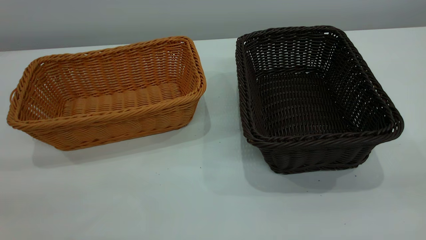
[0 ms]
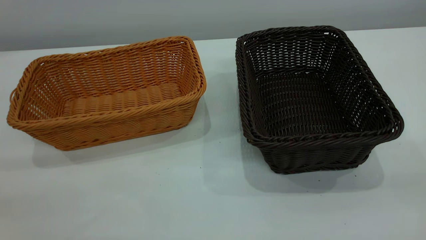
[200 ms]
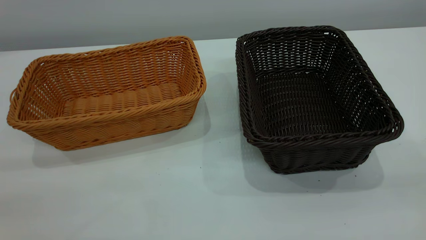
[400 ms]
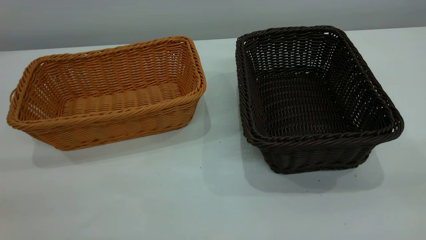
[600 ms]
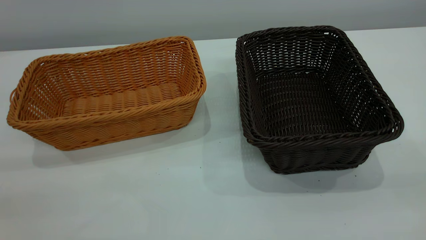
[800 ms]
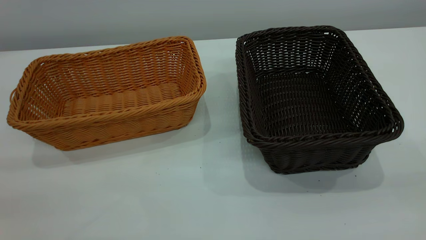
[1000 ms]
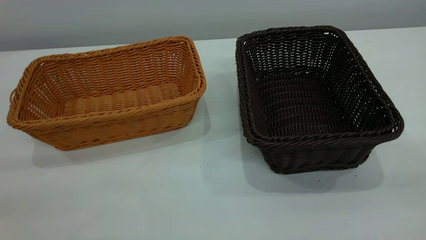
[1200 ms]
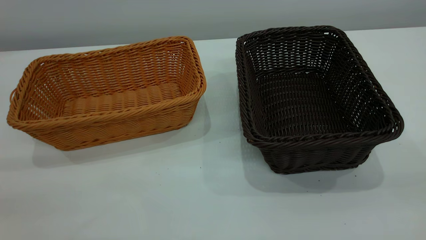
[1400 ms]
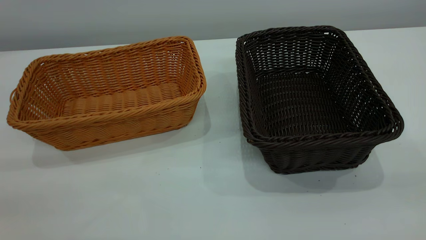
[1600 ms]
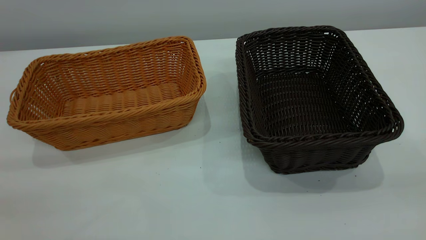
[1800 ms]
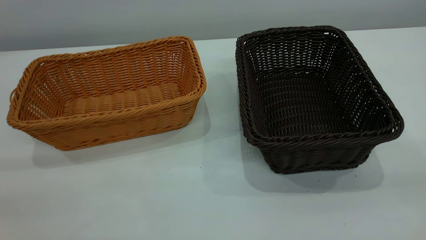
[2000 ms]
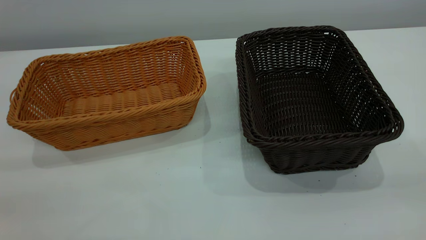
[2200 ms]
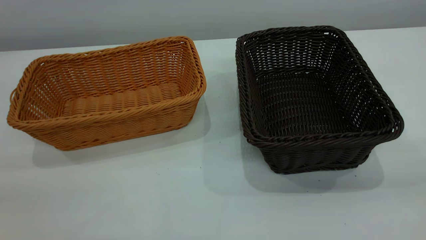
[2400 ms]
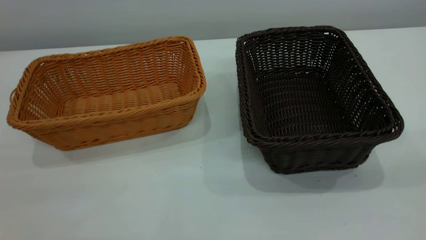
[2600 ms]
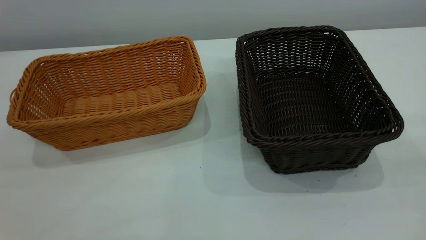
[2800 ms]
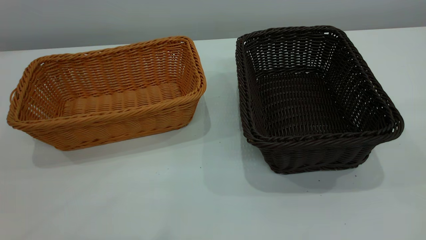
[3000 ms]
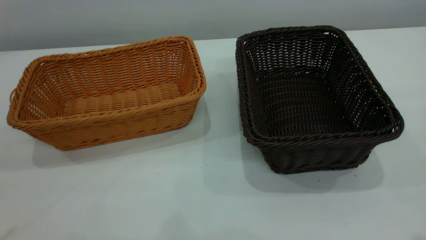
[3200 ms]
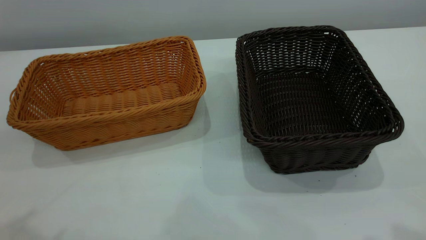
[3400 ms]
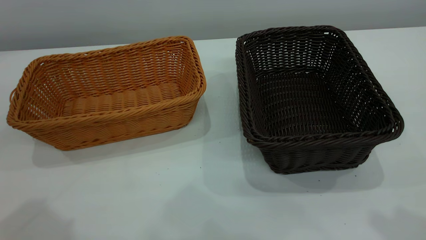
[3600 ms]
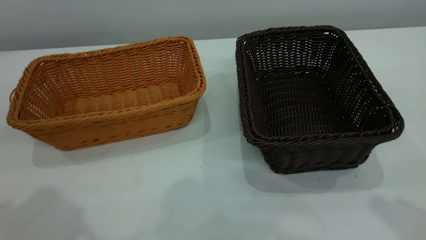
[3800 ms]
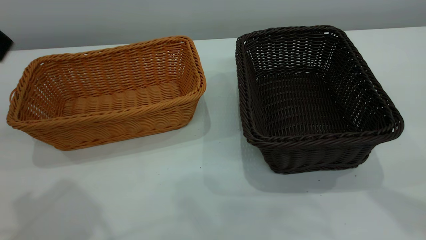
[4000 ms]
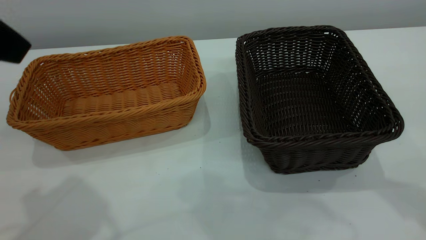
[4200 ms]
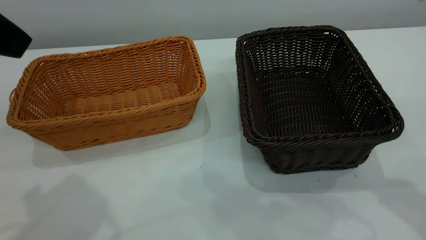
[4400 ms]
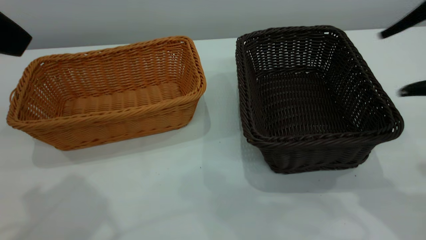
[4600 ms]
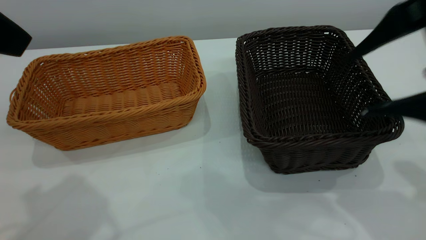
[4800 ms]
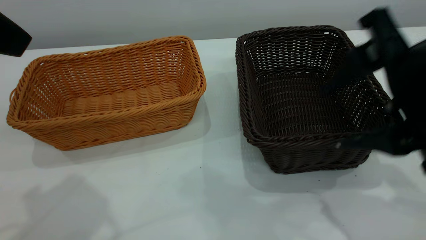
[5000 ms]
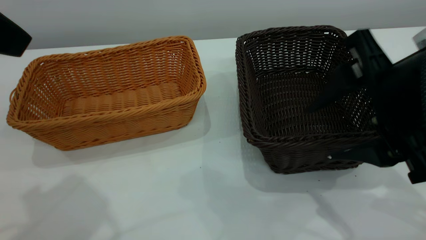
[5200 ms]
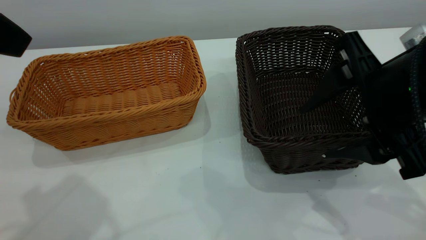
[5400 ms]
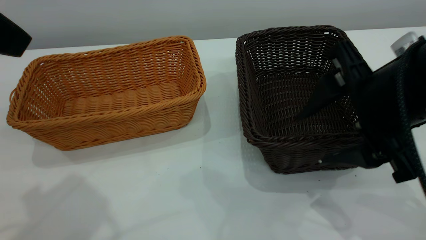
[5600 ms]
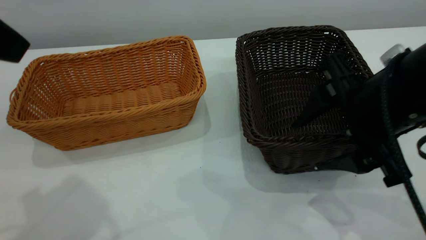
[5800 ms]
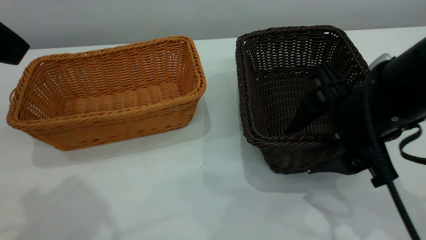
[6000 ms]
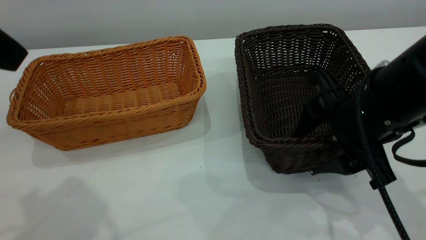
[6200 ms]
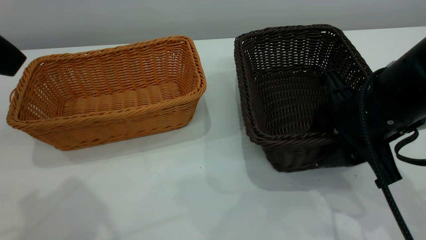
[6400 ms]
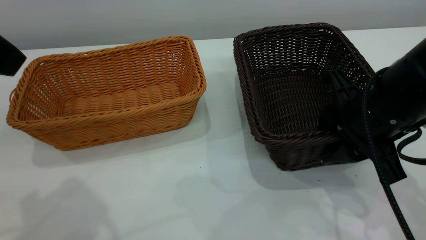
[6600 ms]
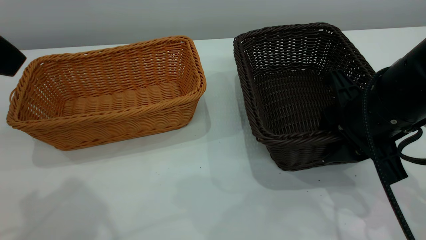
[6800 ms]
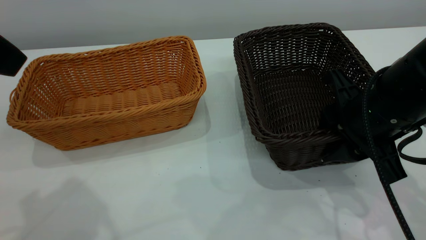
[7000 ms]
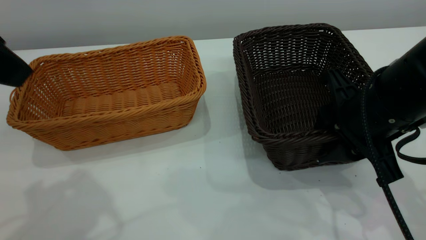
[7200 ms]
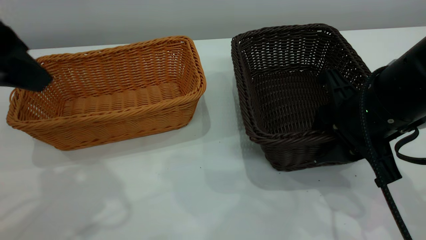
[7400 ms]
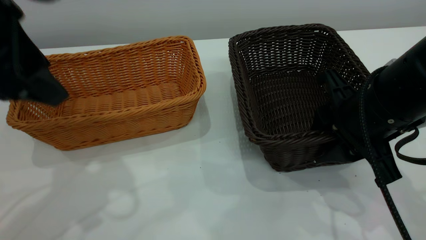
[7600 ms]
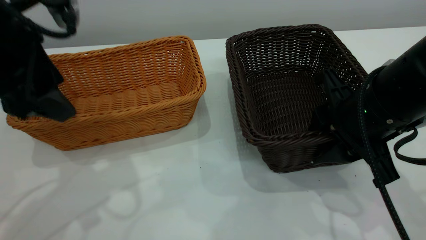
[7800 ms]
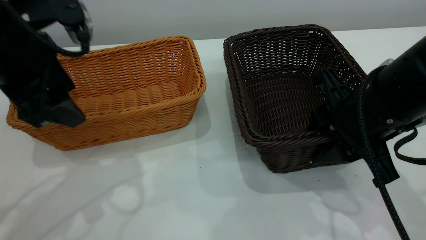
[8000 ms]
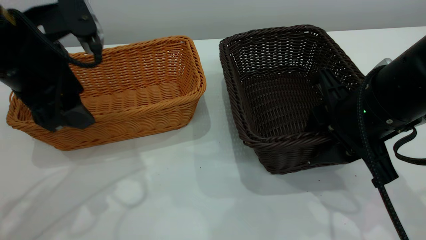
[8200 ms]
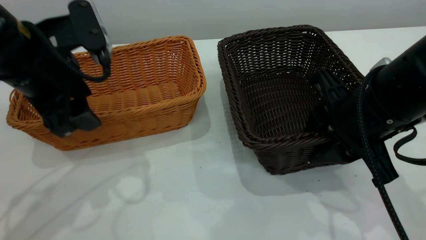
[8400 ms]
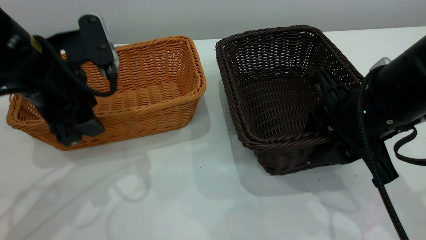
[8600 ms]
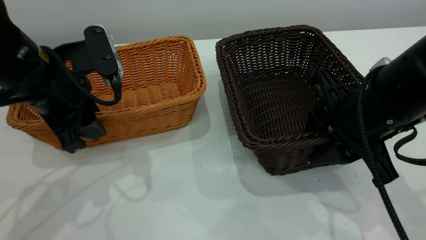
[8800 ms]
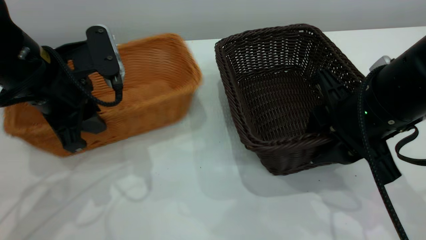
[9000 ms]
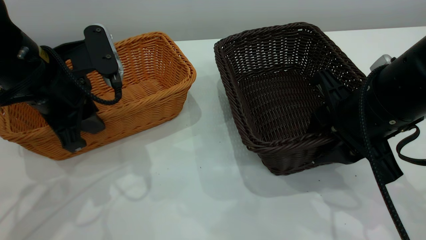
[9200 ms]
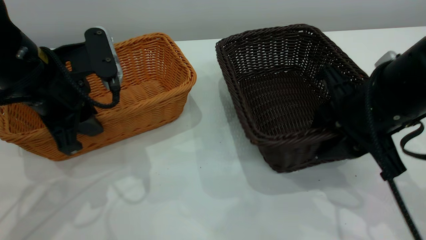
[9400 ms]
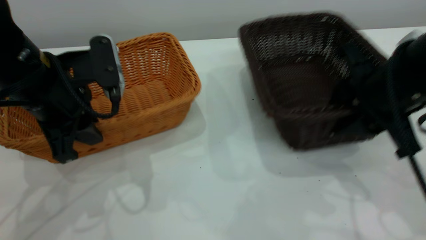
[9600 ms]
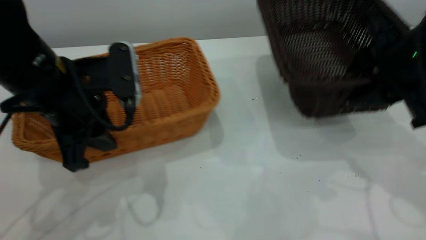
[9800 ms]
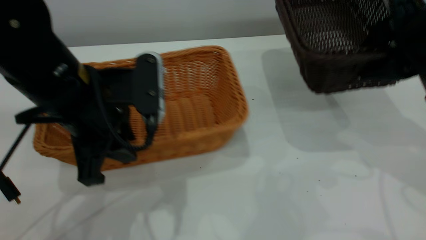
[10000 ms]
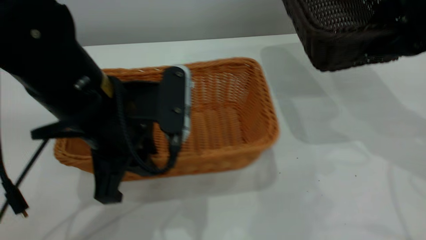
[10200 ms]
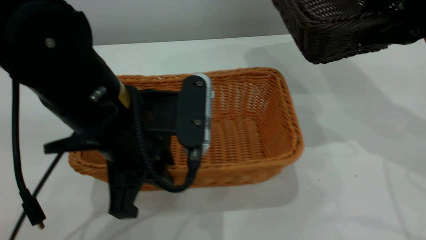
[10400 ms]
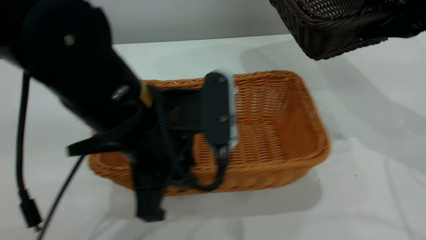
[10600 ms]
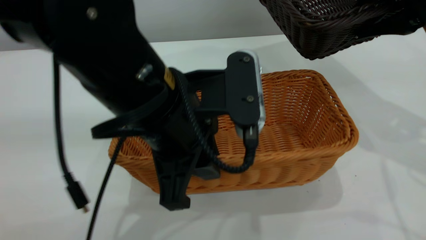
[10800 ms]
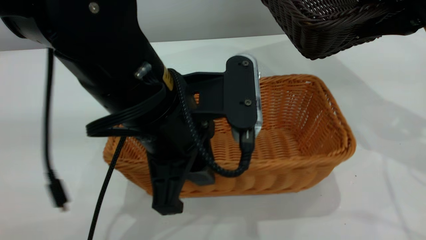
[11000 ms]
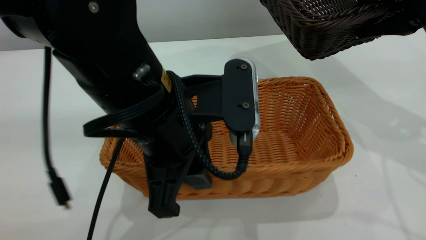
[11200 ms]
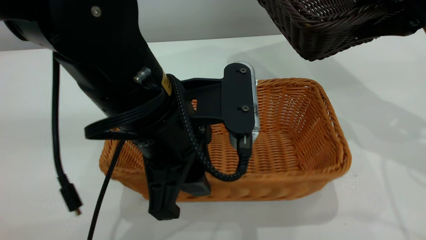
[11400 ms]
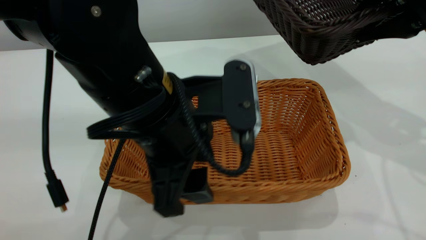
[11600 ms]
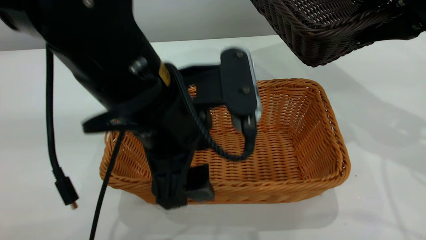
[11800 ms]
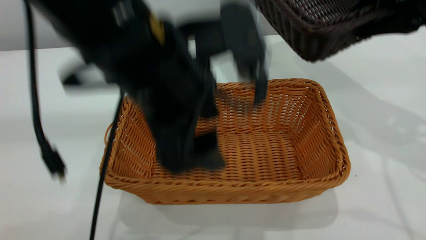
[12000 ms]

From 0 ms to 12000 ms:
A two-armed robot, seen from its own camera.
Task of the whole recording: the left gripper grasp the brown basket and place it in the center of the table, the right gripper grasp the black basket and place it inside the brown one.
Step, from 0 ms to 9600 ms: Pick up the light basket with the right gripper.
Step, from 9800 ms to 11800 ms: Place the light-colored basket in the center.
From 0 ms to 1600 ms: The two grippers keep their place.
From 3000 ms to 4400 ms: The left gripper moves forward and to the right, roughly 15 cm.
From 4400 ms to 6000 ms: The right gripper moves downward, to the left and forward, some 15 cm.
From 6000 ms to 7600 ms: The right gripper closes up; the left gripper is displaced downward and forward by some 10 cm.
From 7600 ms to 9000 ms: The left gripper shifts about 10 cm downward, and closes up.
From 9000 ms to 10400 ms: The left gripper shifts roughly 15 cm to the right and backward; the right gripper is displaced upward, to the right and forward by about 15 cm.
From 10400 ms to 12000 ms: The left gripper goes about 10 cm upward, and opens its fingers.

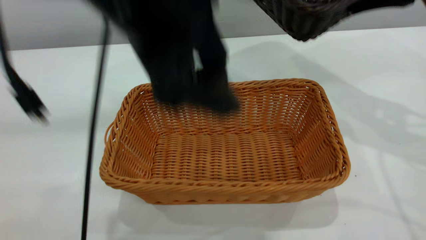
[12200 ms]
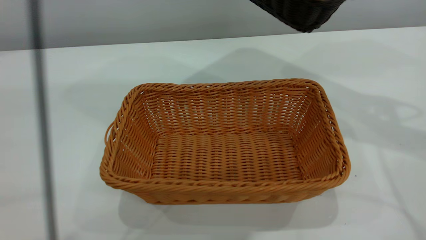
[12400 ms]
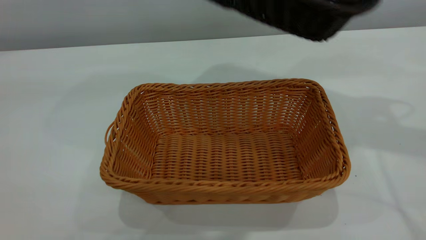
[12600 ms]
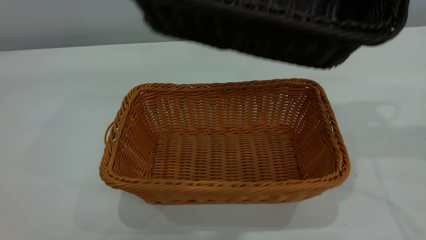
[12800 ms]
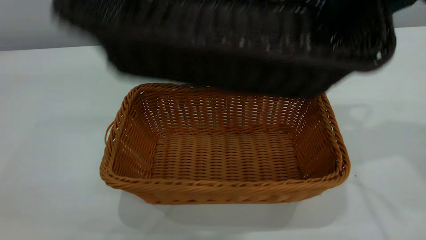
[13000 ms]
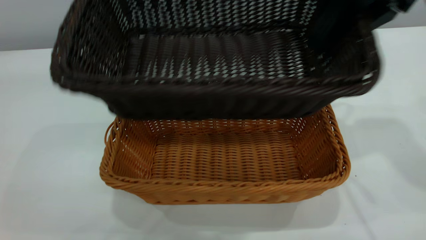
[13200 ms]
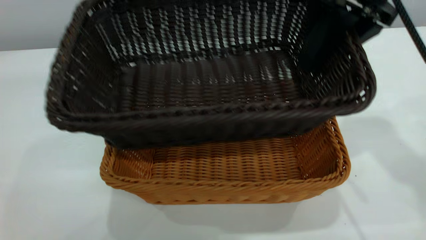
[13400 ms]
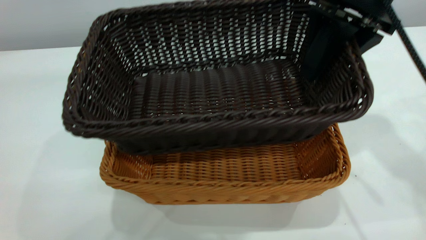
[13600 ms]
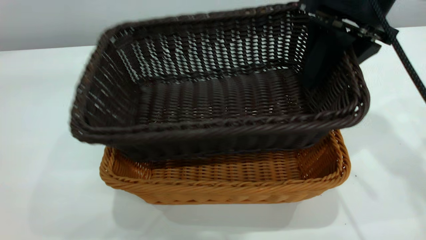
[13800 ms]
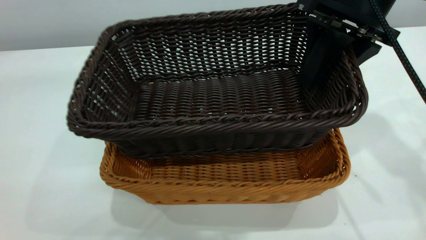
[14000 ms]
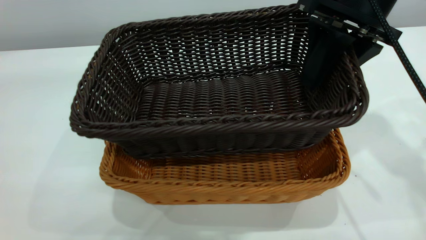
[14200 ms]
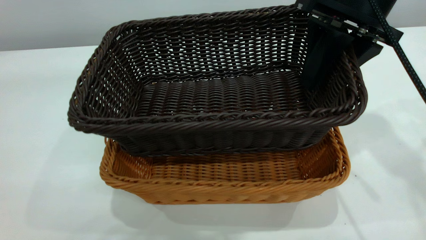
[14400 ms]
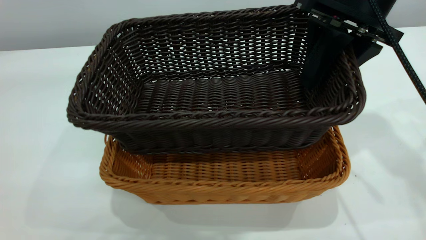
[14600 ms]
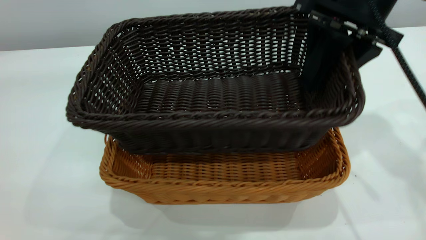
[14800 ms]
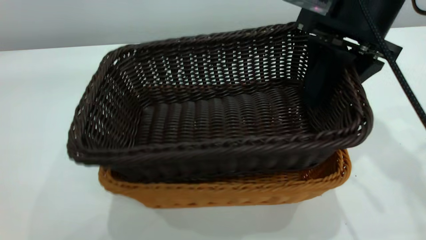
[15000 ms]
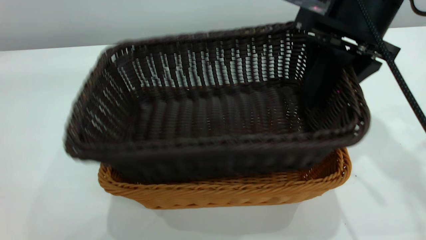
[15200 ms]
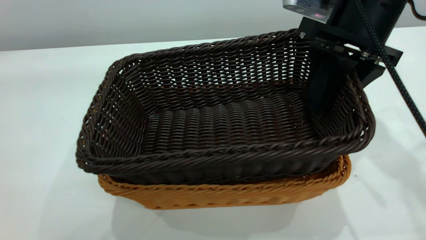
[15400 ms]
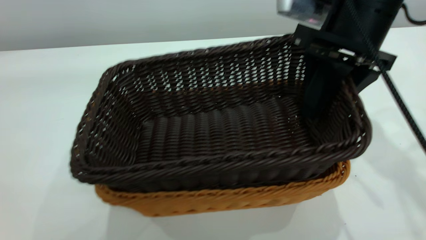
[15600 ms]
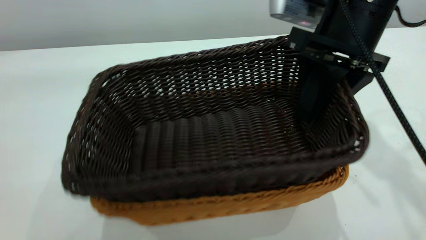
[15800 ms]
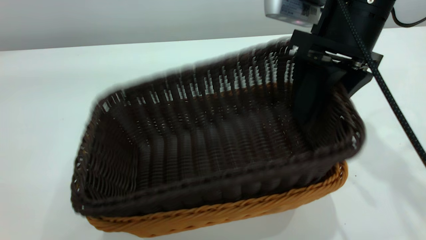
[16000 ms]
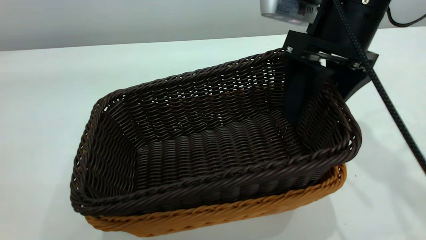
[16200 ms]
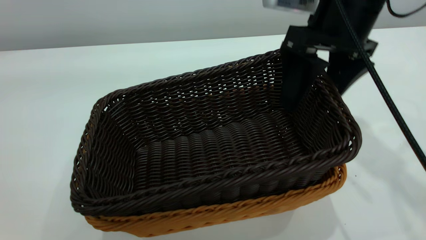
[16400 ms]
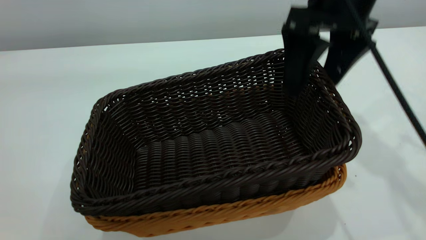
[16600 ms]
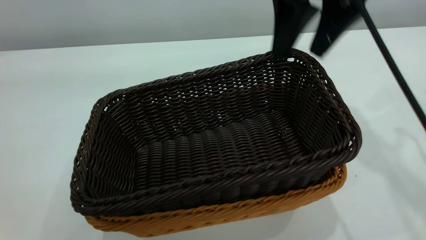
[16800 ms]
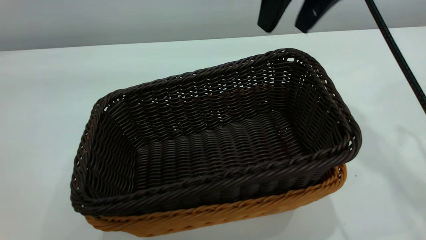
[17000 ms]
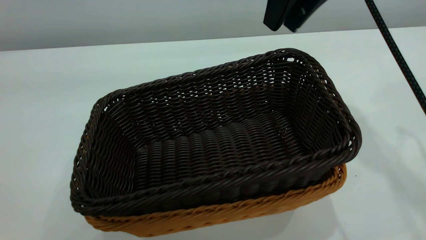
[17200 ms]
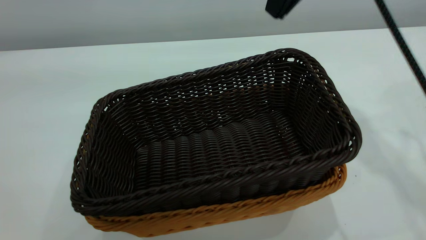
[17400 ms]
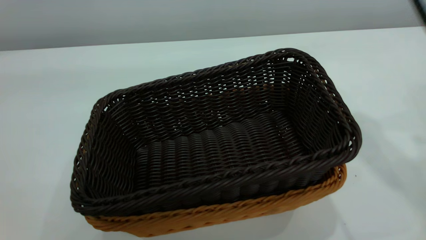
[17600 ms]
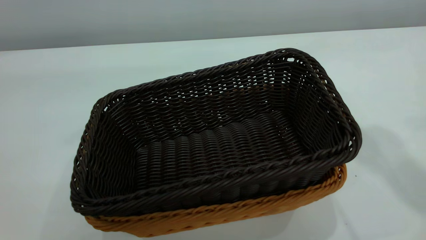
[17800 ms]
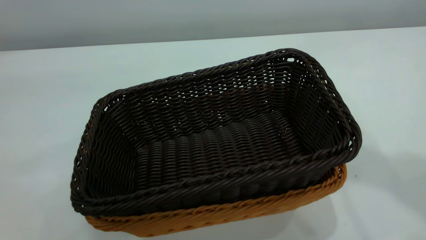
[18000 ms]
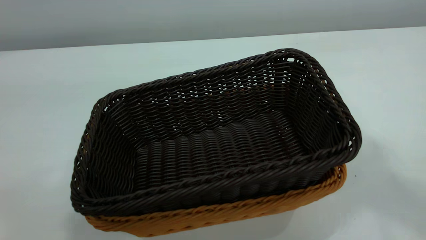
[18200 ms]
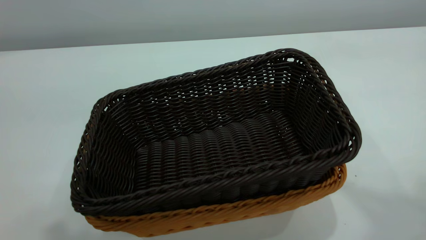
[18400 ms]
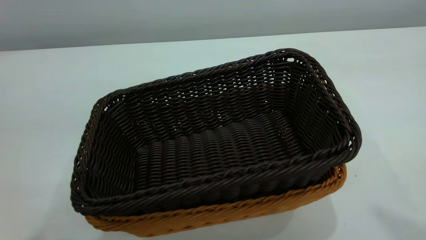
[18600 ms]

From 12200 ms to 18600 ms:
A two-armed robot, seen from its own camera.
Task of the whole recording: the left gripper grasp the brown basket and place it in the center of the table, the right gripper grasp the black basket and place it inside the brown one.
Step, from 12200 ms to 17000 ms: Place the dark basket on top of the light basket.
From 12200 ms to 13800 ms: The left gripper moves upward, roughly 20 cm. Meanwhile the right gripper moves to the left, about 5 cm.
From 15400 ms to 17000 ms: The right gripper goes some 10 cm upward, and opens.
From 17000 ms to 18600 ms: The right gripper heads upward and backward, covering roughly 35 cm, and closes up, while the left gripper moves to the left, downward and backward, roughly 15 cm, and closes.
